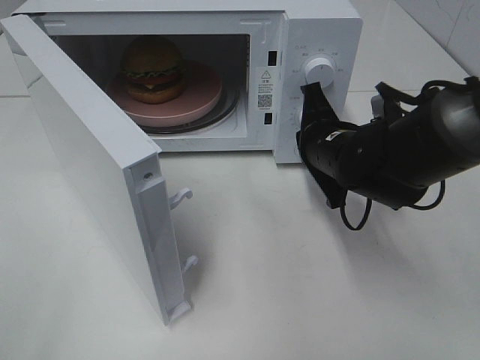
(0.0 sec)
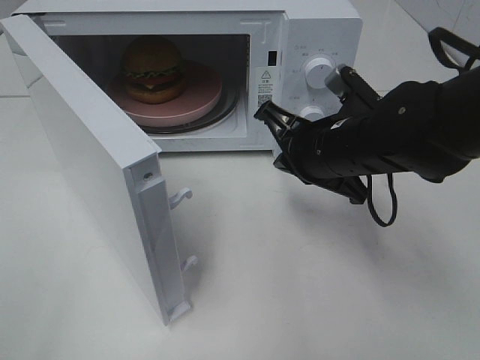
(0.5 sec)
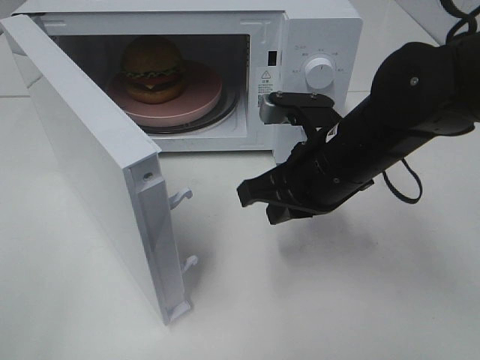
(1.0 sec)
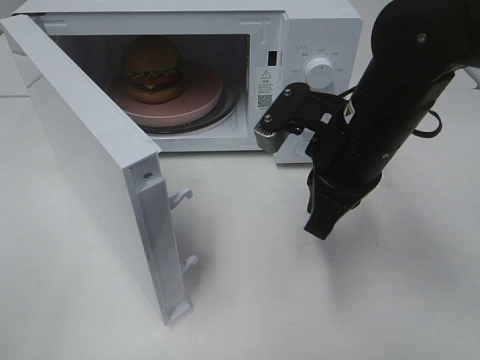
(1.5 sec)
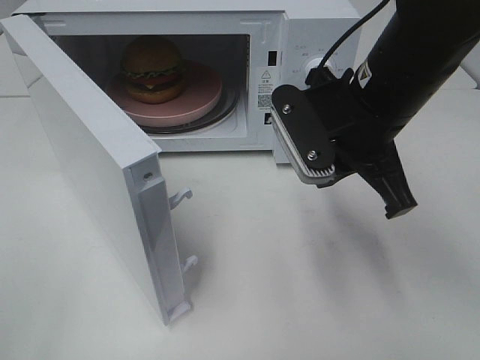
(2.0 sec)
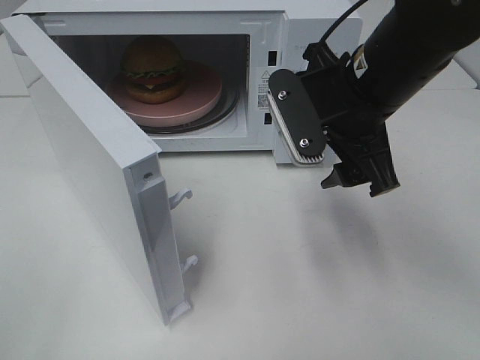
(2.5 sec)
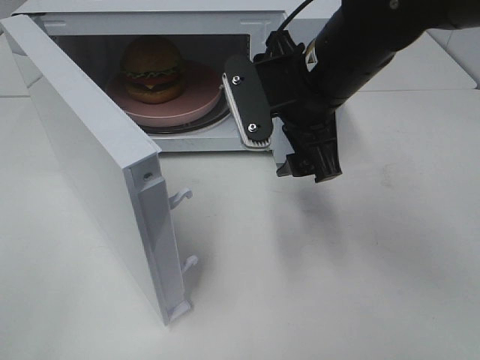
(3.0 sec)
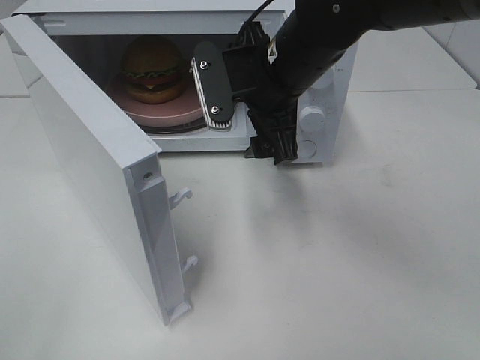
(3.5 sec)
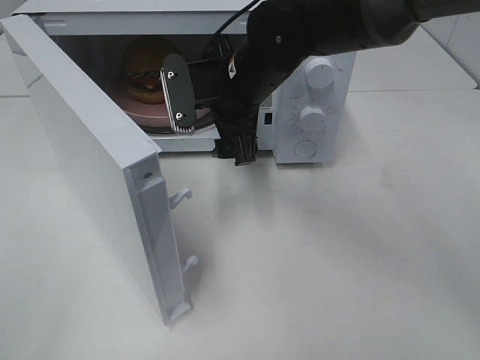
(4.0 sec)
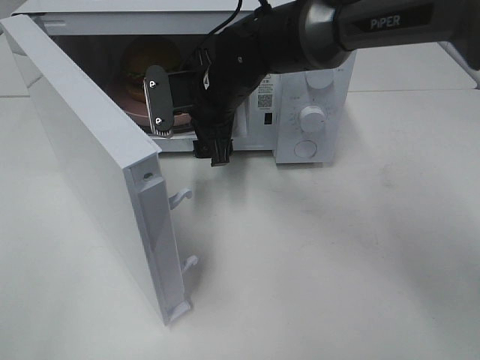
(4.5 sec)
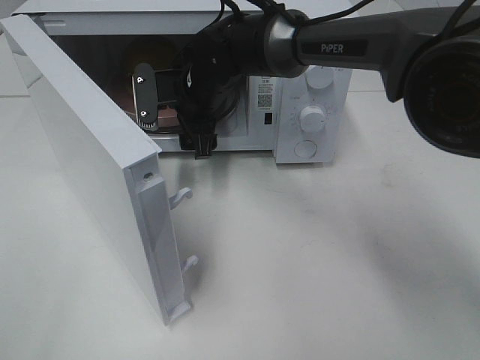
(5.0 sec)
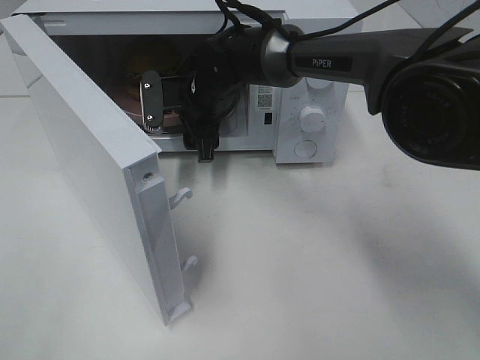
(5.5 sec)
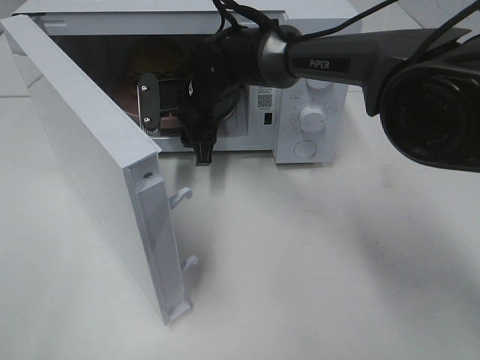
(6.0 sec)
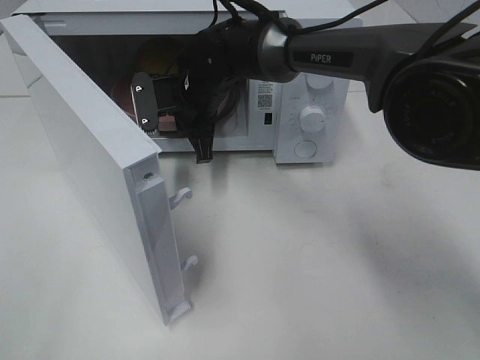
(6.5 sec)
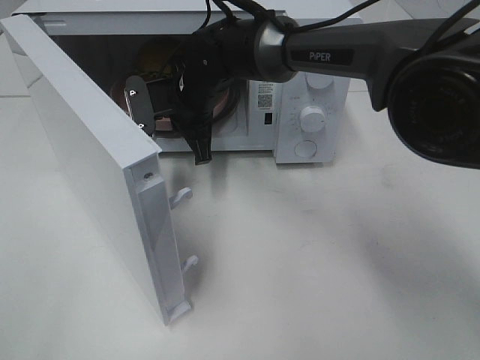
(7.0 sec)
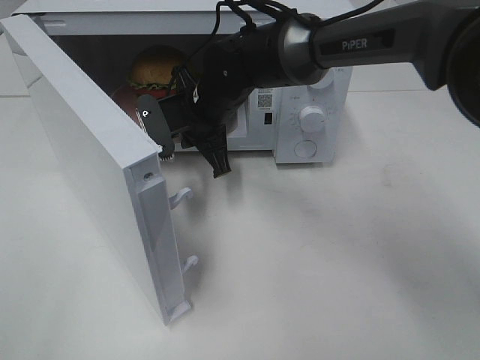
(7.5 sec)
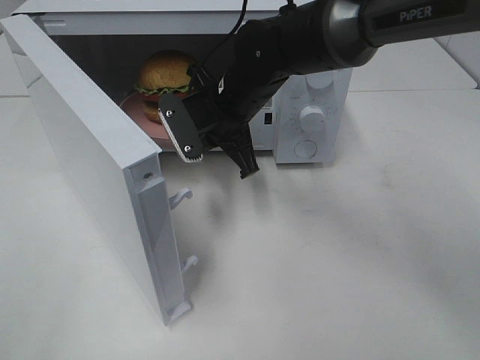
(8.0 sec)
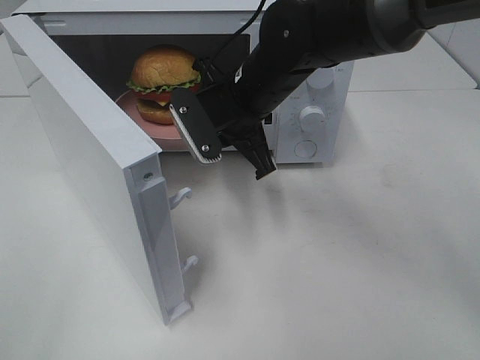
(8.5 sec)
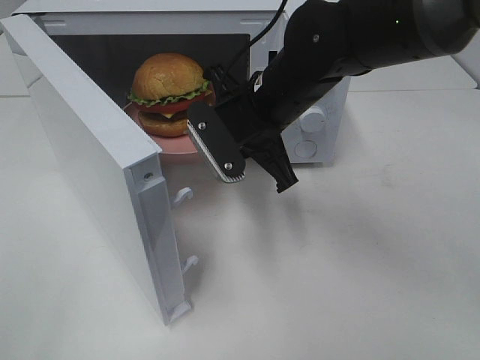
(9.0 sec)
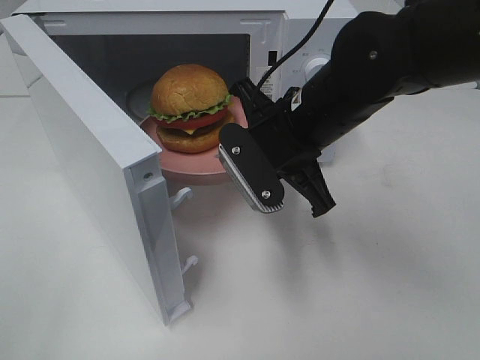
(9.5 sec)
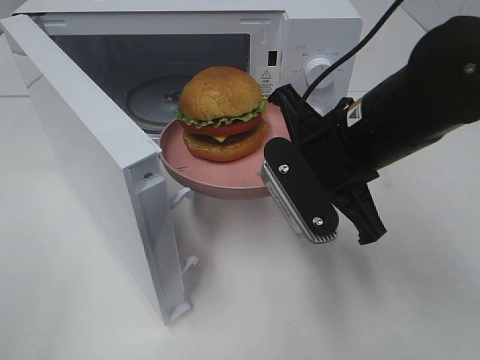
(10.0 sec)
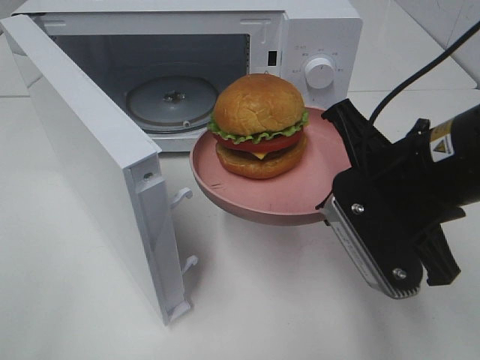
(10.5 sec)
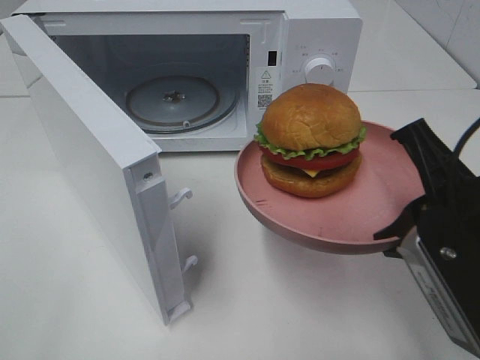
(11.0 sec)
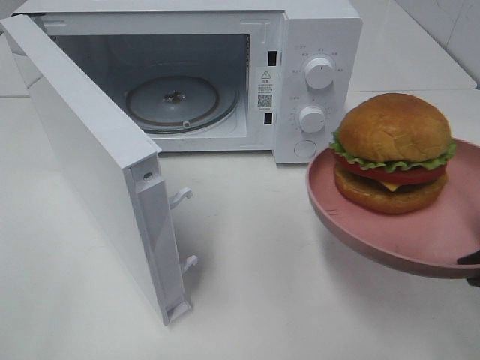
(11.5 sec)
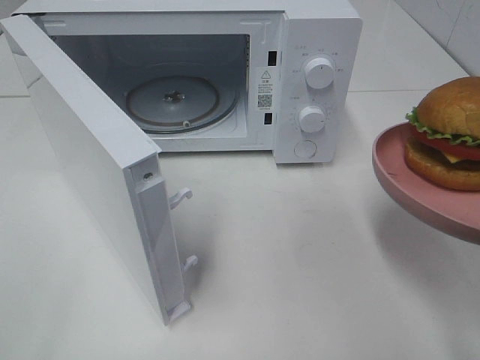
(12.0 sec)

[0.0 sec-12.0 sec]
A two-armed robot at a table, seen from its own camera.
Task of the whole recording: Heat the burger.
Step, 0.5 sec to 6.5 sec: Right hand: grab the plate with the hamburger.
0.0 sec to 2.0 sec: The right gripper shifts about 10 cm upward and backward.
2.0 sec to 4.0 sec: The right gripper goes roughly 15 cm to the left and forward, and opens.
4.0 sec to 6.0 sec: The right gripper goes approximately 10 cm forward and downward, and closes.
6.0 sec to 8.0 sec: The right gripper is displaced backward by approximately 5 cm, and closes up.
8.0 sec to 10.0 sec: The right gripper heads backward and to the right, covering roughly 15 cm.
10.0 sec to 12.0 sec: The right gripper travels backward and to the right by approximately 20 cm.

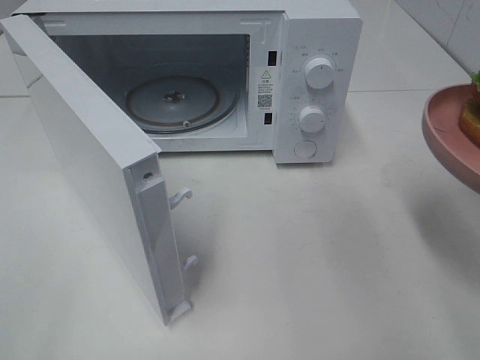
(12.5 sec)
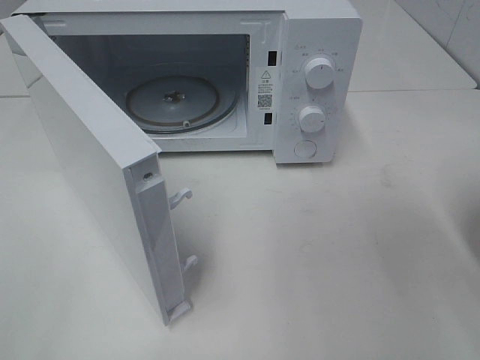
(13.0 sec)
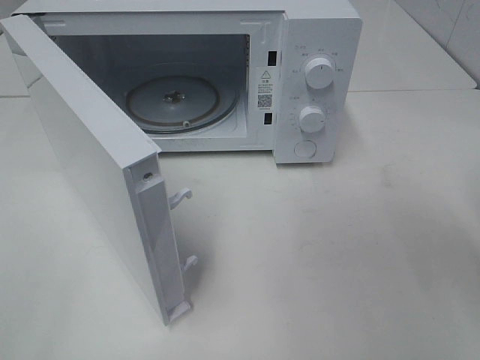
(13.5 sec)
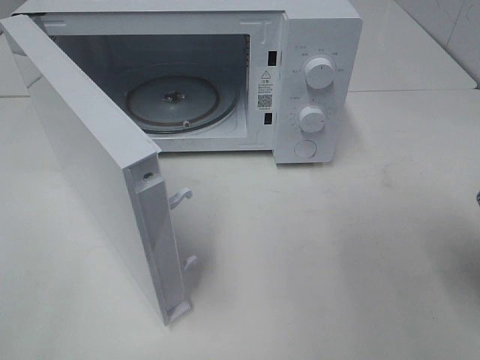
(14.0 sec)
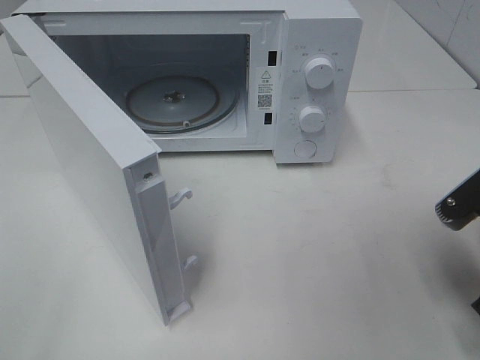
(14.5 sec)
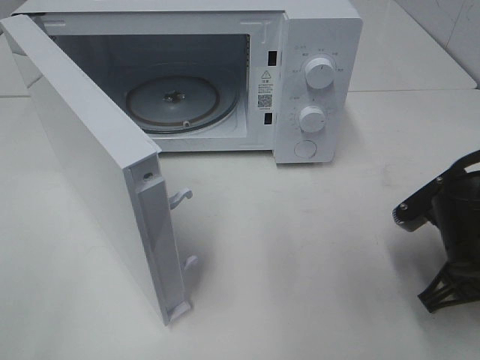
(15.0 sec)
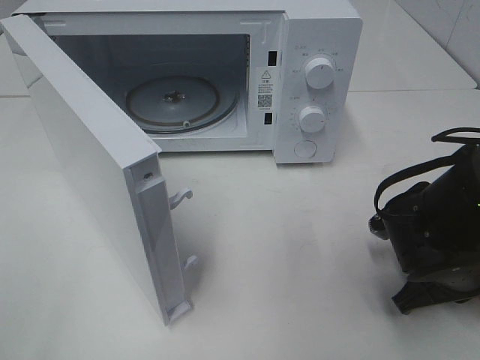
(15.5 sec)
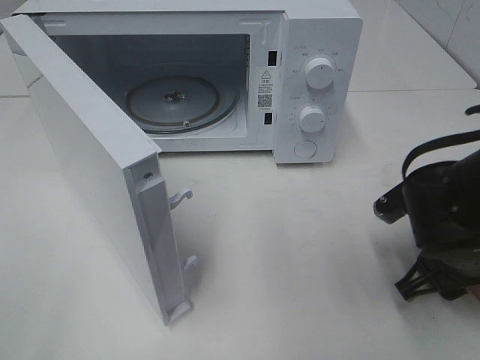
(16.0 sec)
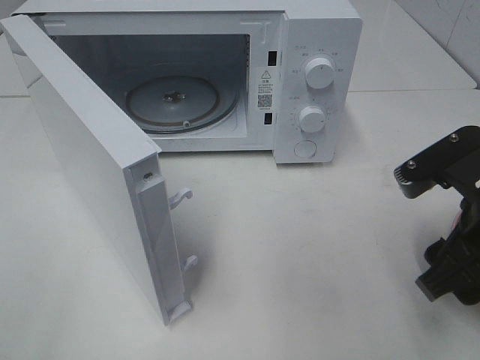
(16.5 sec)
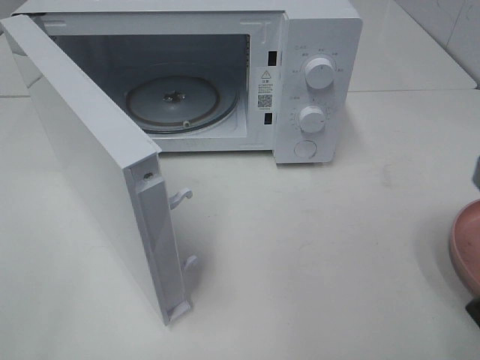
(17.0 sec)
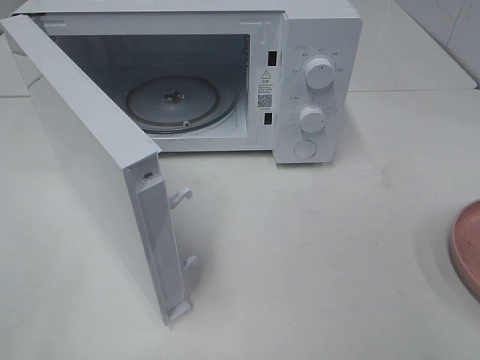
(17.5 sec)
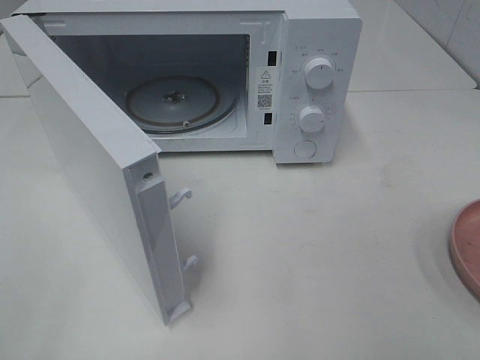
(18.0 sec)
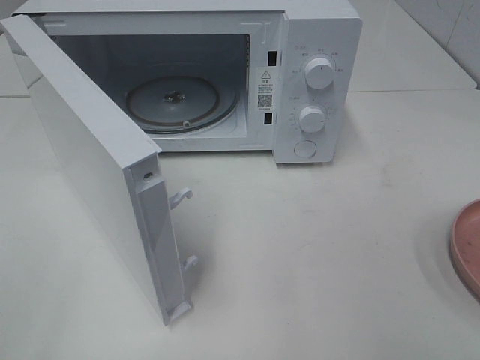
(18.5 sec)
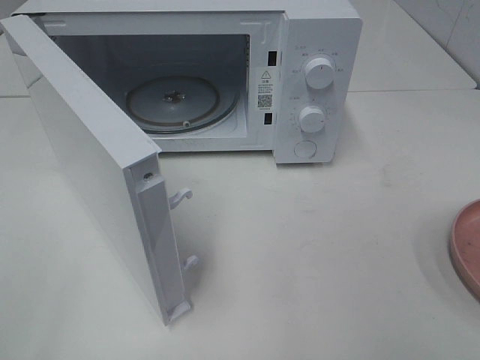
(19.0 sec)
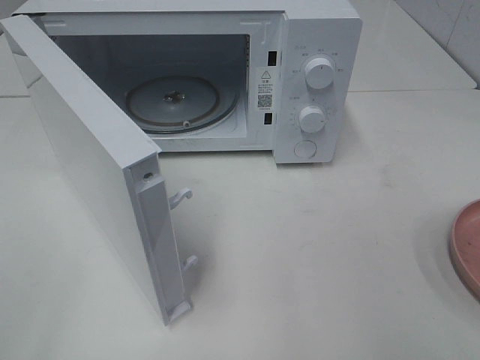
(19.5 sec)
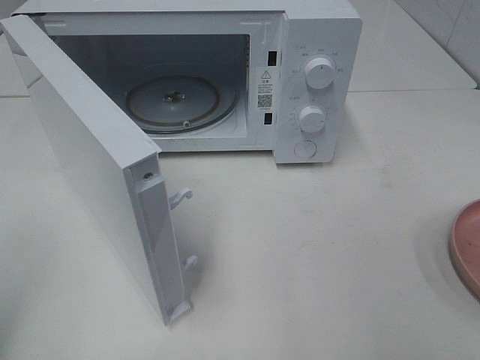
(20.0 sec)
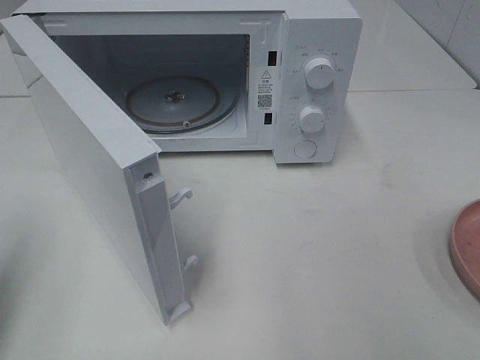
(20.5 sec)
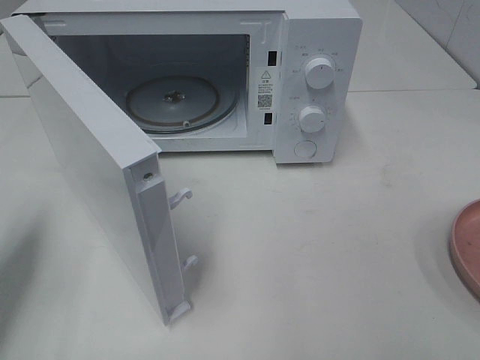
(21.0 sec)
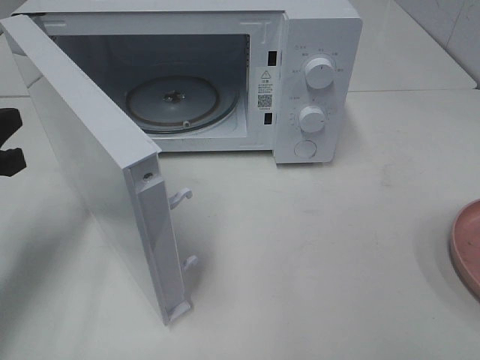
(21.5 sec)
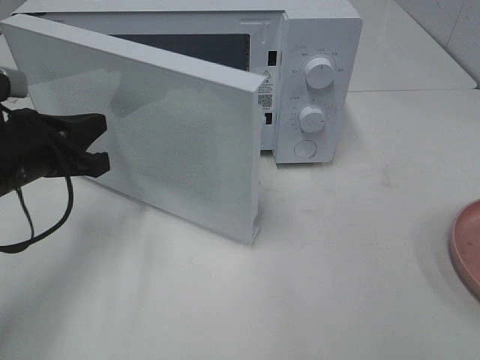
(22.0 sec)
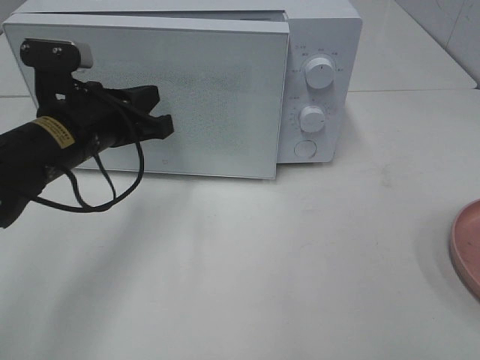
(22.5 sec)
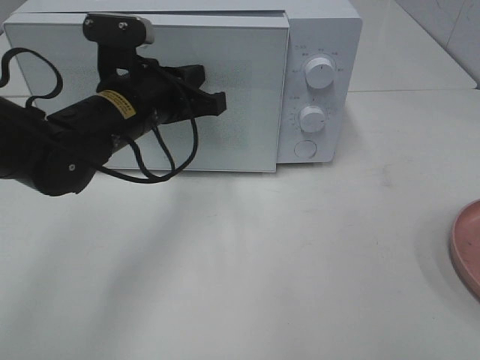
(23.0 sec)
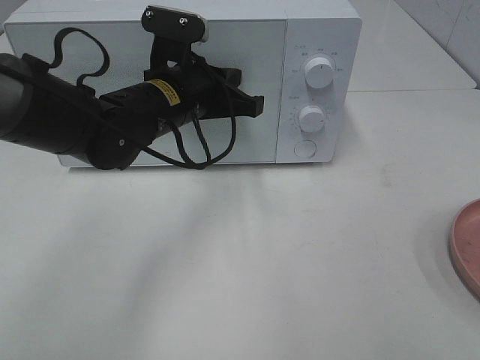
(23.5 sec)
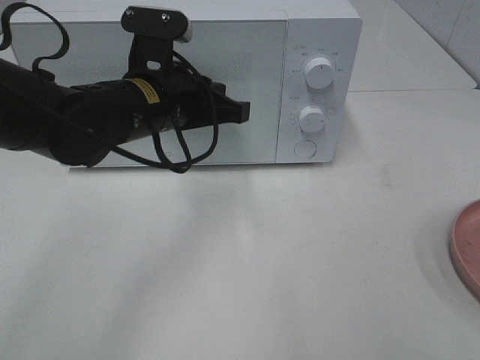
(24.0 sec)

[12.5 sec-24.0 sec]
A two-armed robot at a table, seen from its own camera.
Task of the whole recording: Heat the burger.
Step, 12.5 sec to 16.0 sec: Right hand: place the plate on the table.
12.5 sec to 14.5 sec: The right gripper travels downward by about 10 cm.
14.5 sec to 16.5 sec: The right gripper travels downward and back again, about 10 cm each way, and opens.
16.5 sec to 18.5 sec: The right gripper moves backward, upward and to the right, about 20 cm.
20.0 sec to 22.0 sec: The left gripper goes approximately 25 cm forward, downward and to the right.
22.0 sec to 24.0 sec: The left gripper goes some 15 cm to the right.

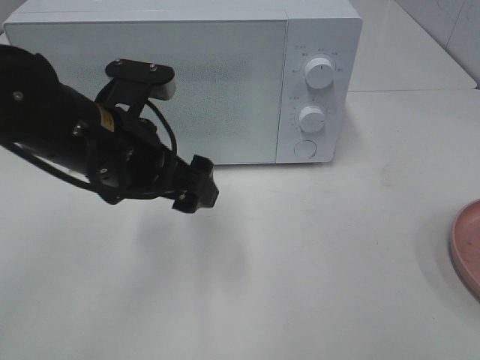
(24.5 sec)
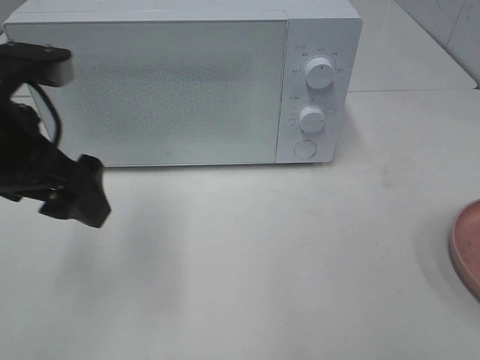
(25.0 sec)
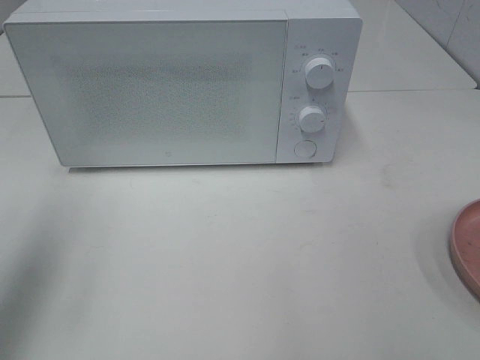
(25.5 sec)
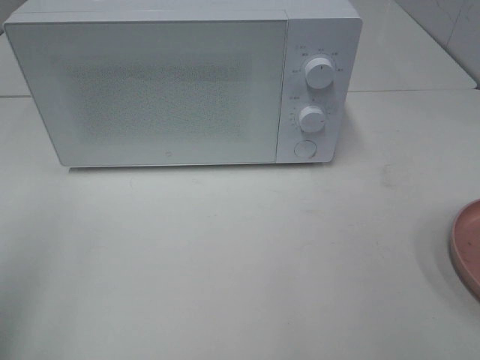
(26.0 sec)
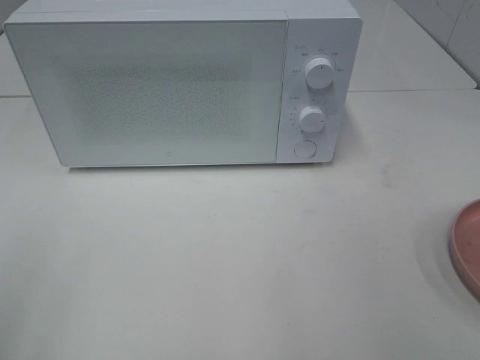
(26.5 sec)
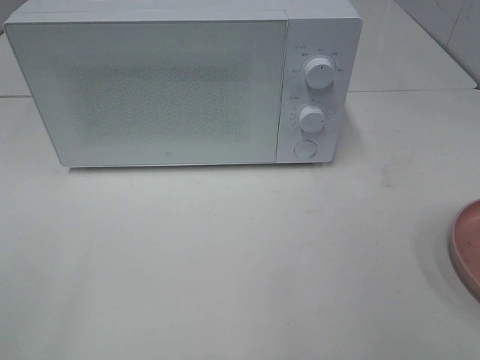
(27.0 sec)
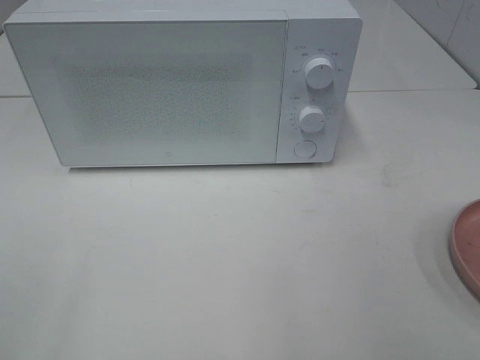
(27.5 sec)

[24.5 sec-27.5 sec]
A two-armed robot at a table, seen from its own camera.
Task of the whole recording: Heat the burger.
24.5 sec to 26.0 sec: The left gripper is displaced to the left, backward and upward by some 30 cm.
